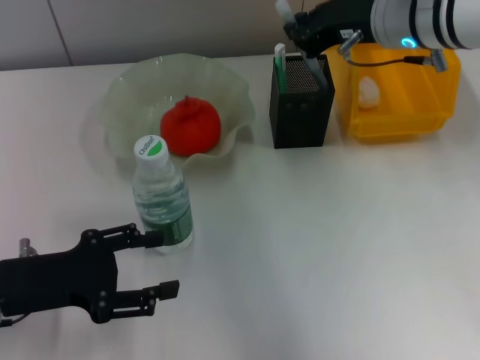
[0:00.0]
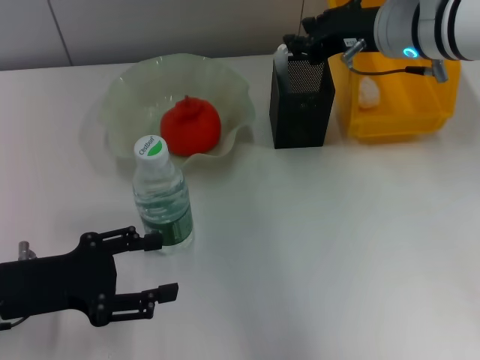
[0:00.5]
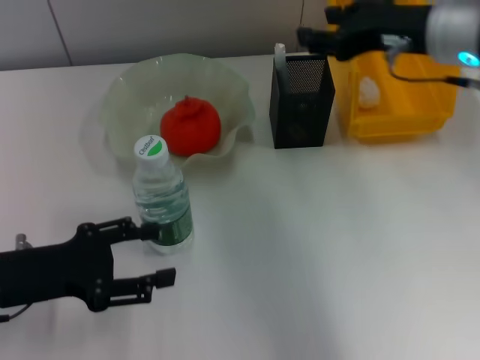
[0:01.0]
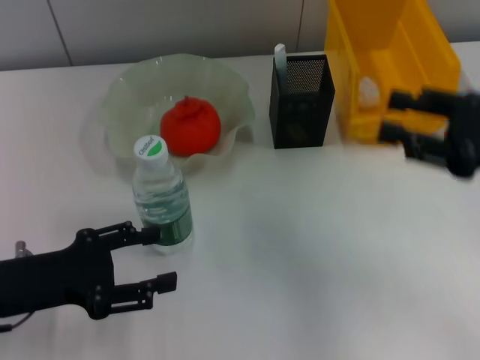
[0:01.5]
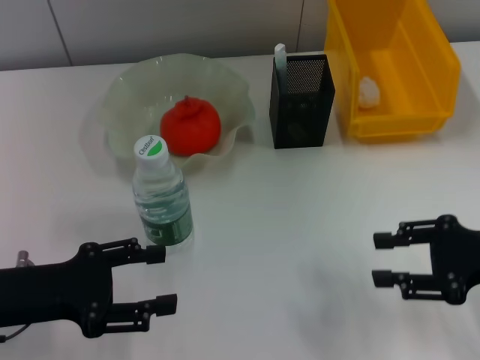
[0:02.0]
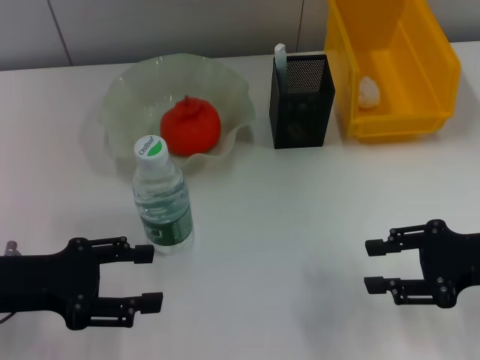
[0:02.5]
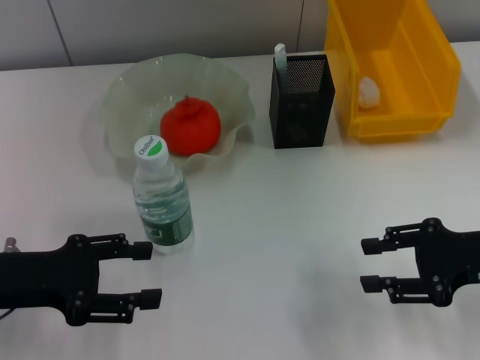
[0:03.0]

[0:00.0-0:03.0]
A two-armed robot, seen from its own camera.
0:00.0 to 0:01.5: The right gripper goes approximately 20 cm backward and to the right, and opens up.
0:01.5 to 0:03.0: The right gripper travels downward by about 5 cm.
